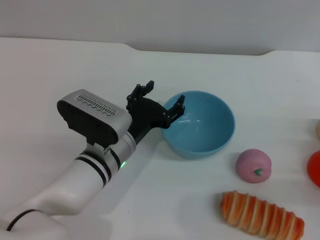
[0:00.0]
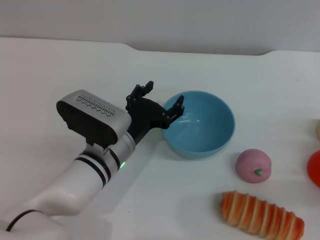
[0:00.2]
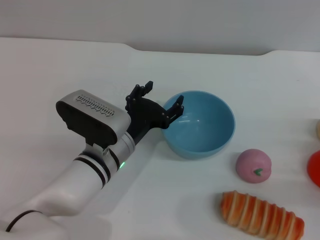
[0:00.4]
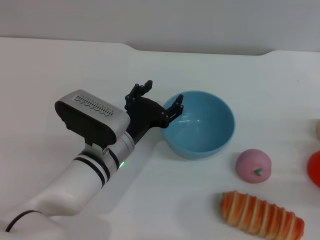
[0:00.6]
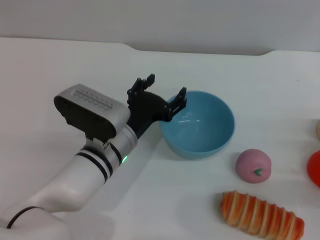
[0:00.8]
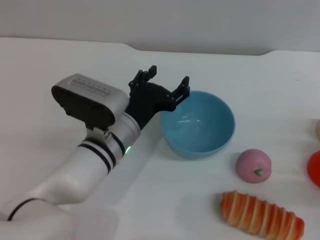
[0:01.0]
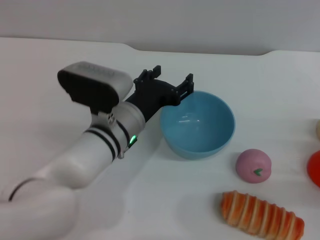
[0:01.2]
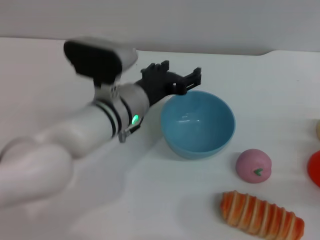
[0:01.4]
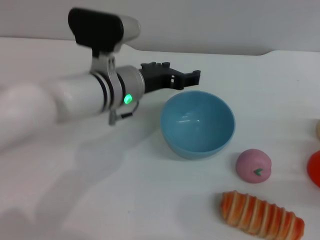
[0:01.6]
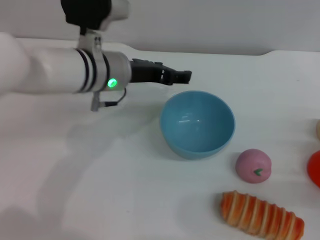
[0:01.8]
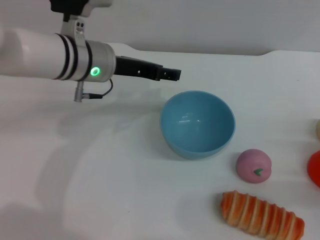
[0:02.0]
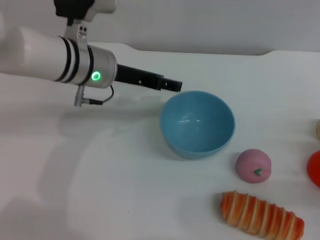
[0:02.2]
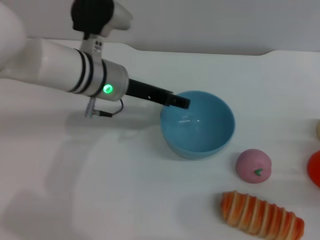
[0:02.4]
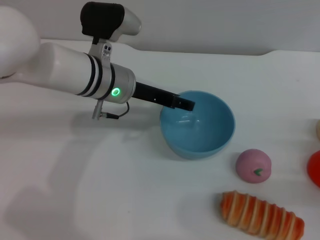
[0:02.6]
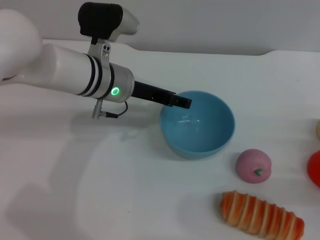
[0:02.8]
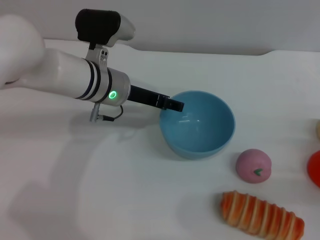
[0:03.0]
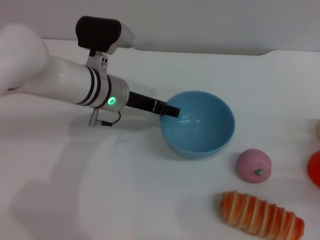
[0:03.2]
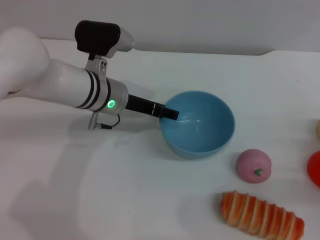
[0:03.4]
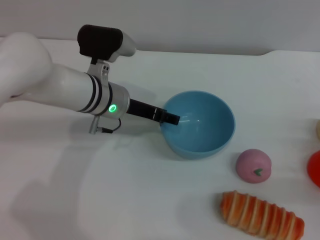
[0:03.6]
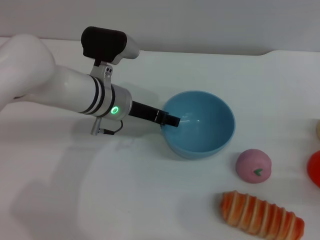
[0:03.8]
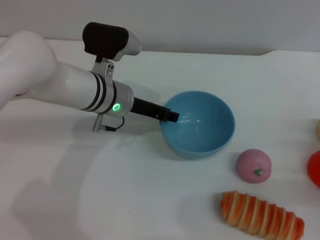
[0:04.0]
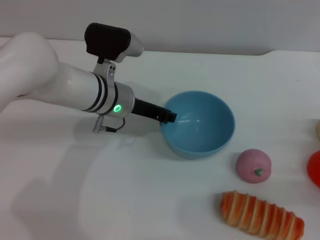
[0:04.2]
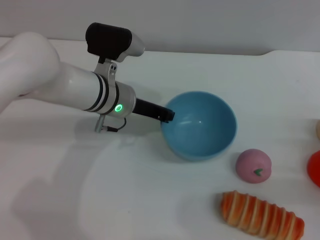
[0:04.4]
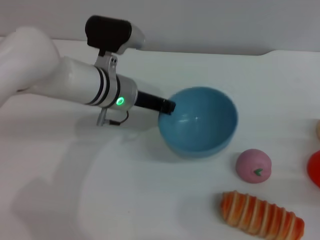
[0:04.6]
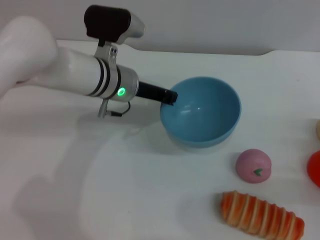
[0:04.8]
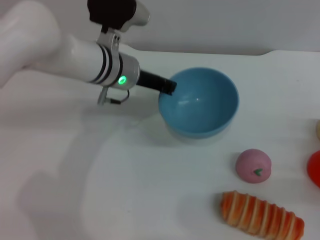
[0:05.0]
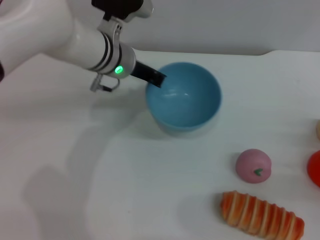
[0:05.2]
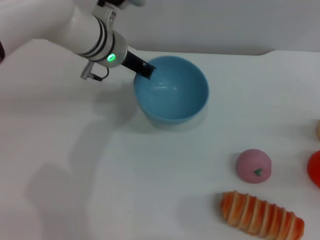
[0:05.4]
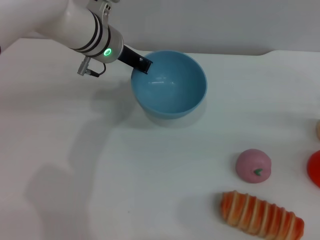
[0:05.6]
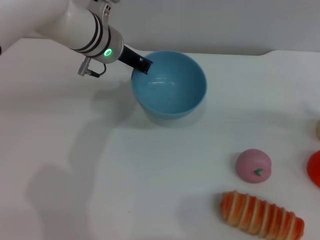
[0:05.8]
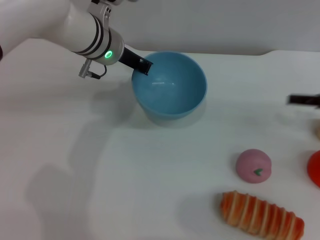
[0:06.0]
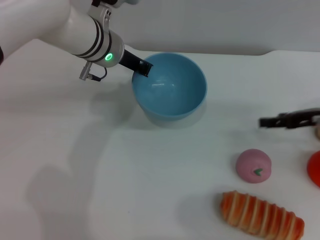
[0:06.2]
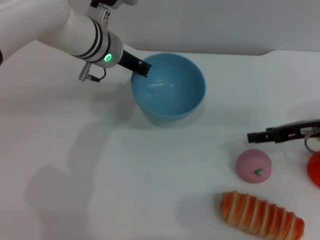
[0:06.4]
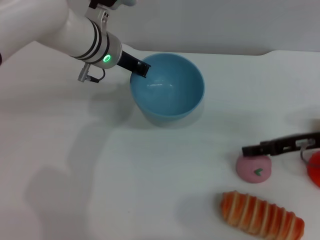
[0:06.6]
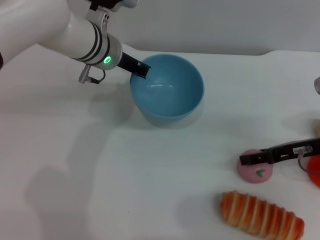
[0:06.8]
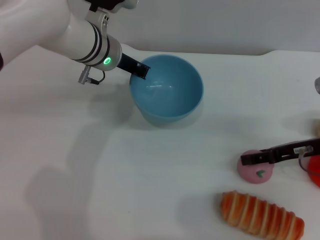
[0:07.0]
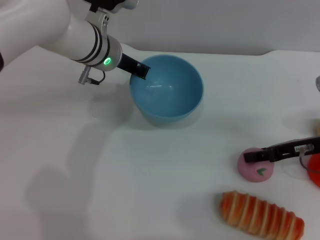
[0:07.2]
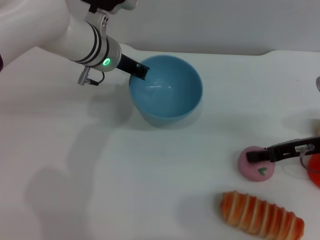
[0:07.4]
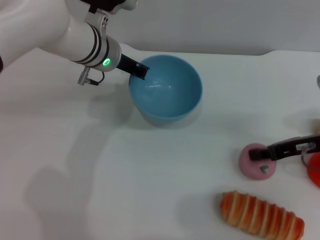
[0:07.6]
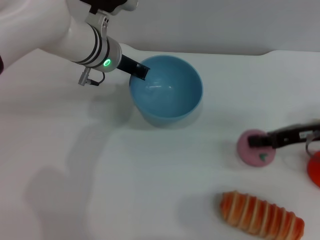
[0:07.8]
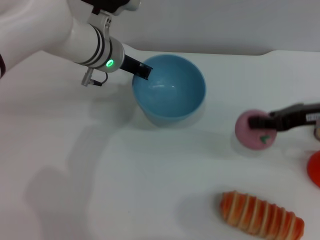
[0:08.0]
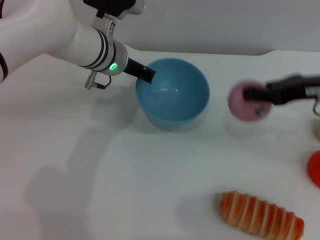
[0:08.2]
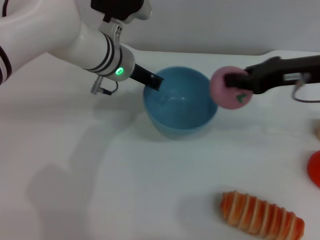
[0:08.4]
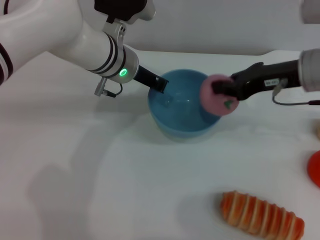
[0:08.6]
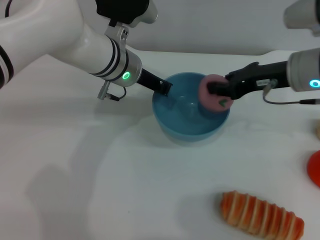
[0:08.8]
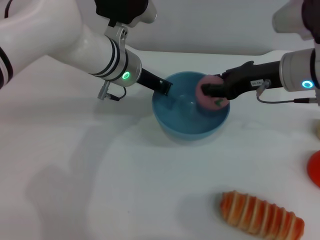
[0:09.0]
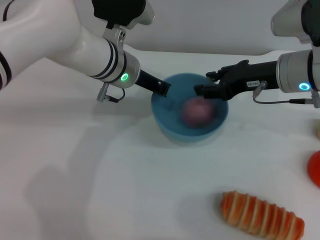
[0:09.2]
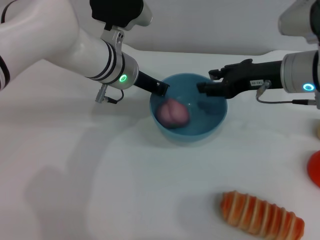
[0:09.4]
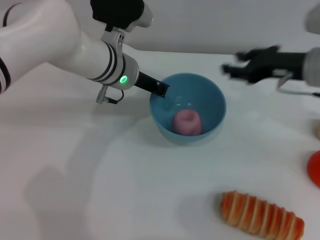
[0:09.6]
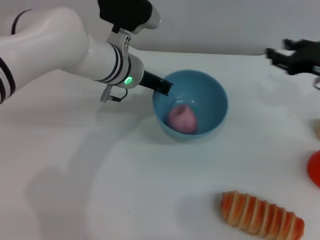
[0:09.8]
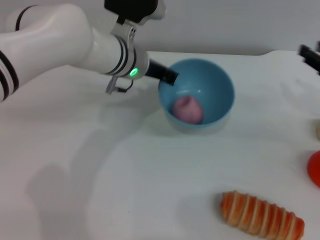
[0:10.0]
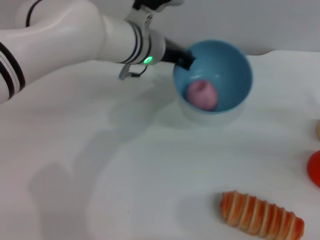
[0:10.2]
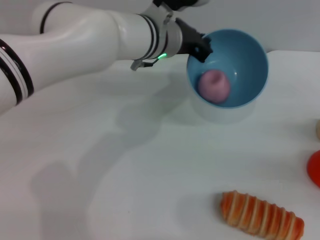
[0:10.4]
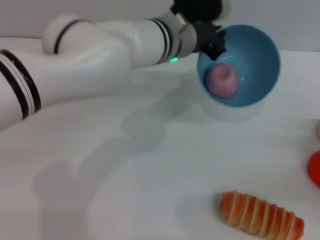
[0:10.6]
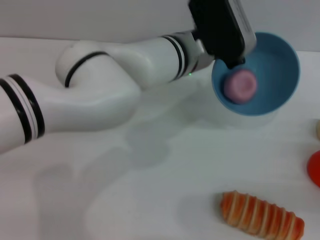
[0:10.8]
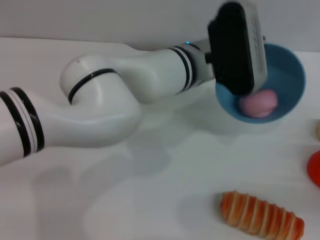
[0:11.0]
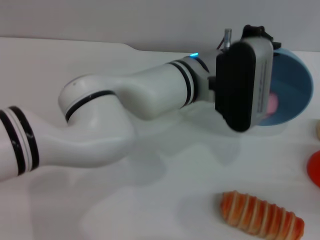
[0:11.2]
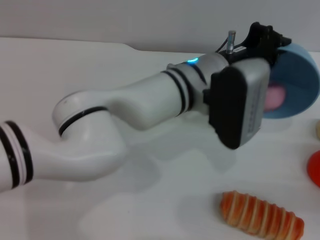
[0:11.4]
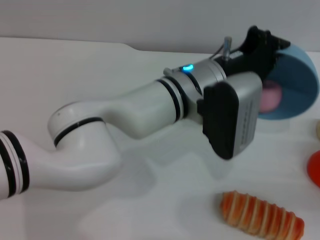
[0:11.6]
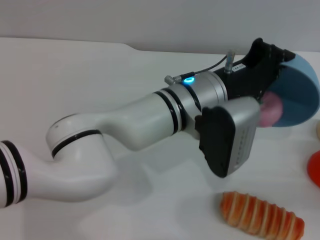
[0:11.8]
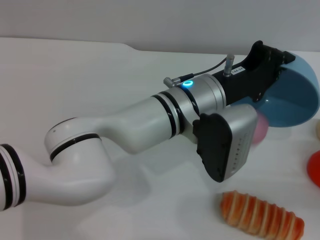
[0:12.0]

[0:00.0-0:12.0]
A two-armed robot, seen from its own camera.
Task of the whole recording: put the peach into the blue bowl and pour it out repeatedly.
Step, 0:00.0 to 0:05.2: Pick up the bowl with the left gripper.
Step, 0:05.4 to 0:08.0: Pick up the peach with the right gripper.
Step, 0:08.2 to 0:09.4: Place the peach into the bowl.
0:00.0 to 0:01.6: The left gripper shifts some 10 cm upward and forward.
0:03.0 to 0:04.4: The left gripper closes its fingers.
0:04.4 to 0:06.0: The right gripper shifts some 15 cm forward and upward; the left gripper goes some 10 cm upward and forward, and closes.
0:06.0 to 0:07.6: The right gripper moves to the left, about 5 cm, and closes.
0:07.6 to 0:09.0: The right gripper is displaced to the left and upward by about 10 cm.
0:09.0 to 0:10.4: The right gripper shifts roughly 25 cm to the right, backward and downward, and opens up, while the left gripper heads to the right, covering about 5 cm.
0:10.4 to 0:12.0: The right gripper moves approximately 5 cm. The left gripper goes approximately 10 cm backward.

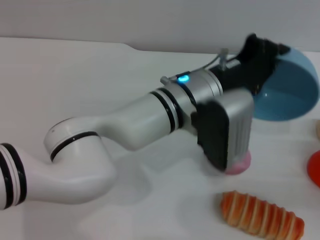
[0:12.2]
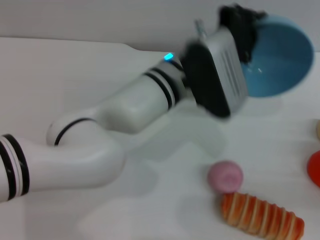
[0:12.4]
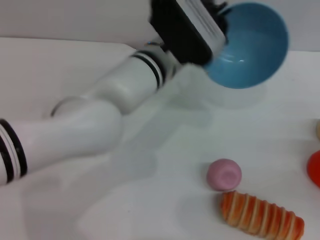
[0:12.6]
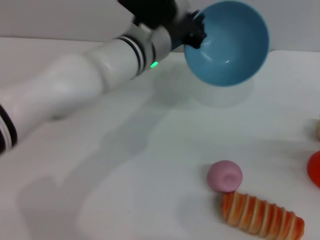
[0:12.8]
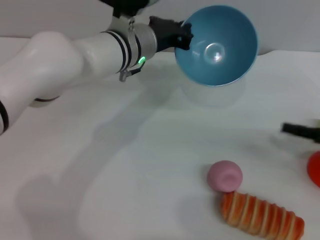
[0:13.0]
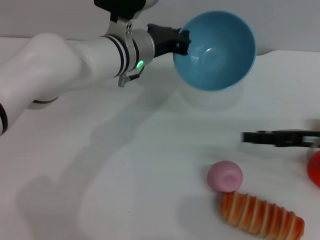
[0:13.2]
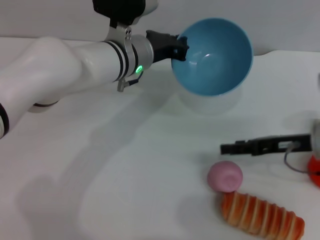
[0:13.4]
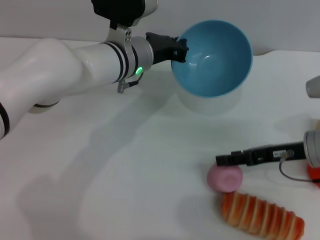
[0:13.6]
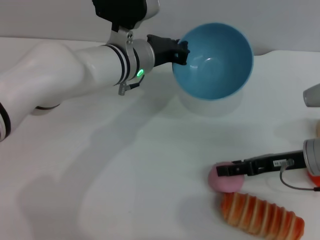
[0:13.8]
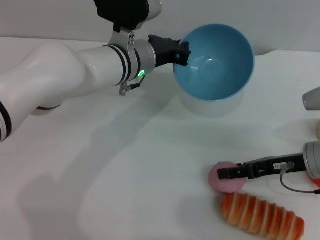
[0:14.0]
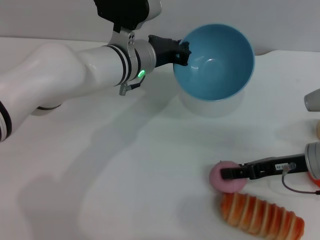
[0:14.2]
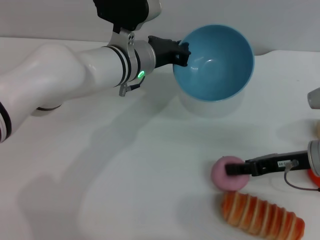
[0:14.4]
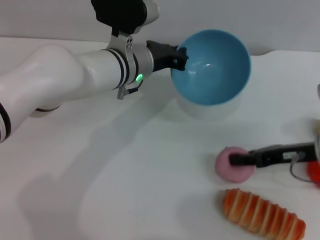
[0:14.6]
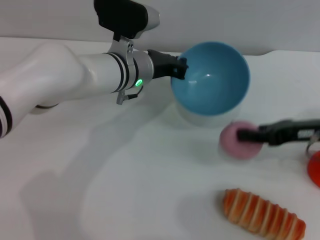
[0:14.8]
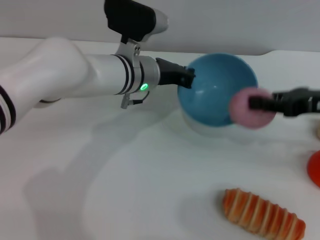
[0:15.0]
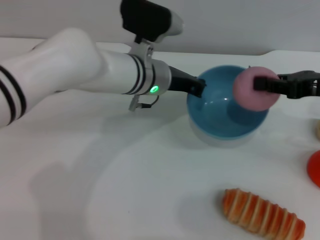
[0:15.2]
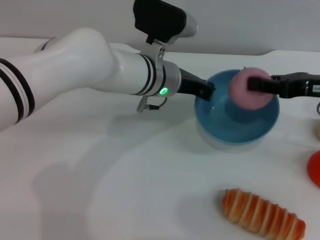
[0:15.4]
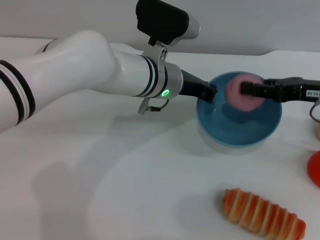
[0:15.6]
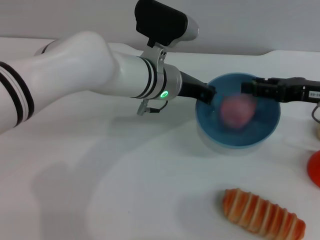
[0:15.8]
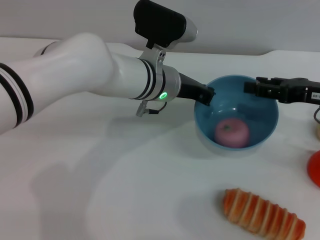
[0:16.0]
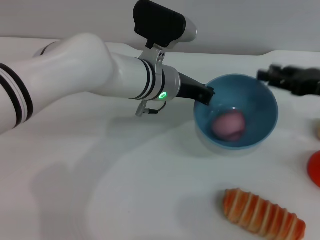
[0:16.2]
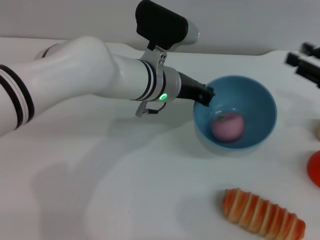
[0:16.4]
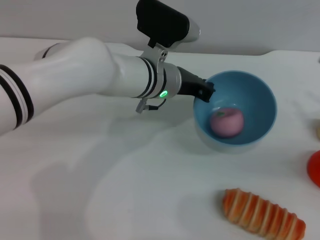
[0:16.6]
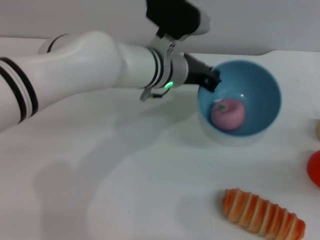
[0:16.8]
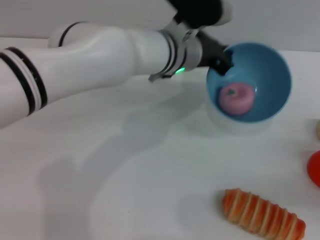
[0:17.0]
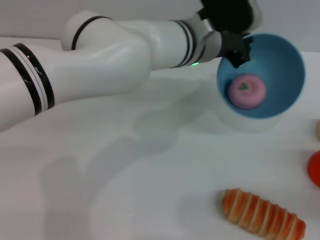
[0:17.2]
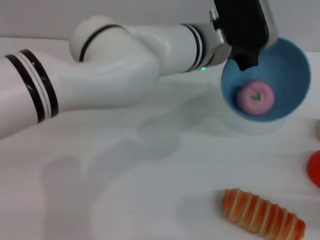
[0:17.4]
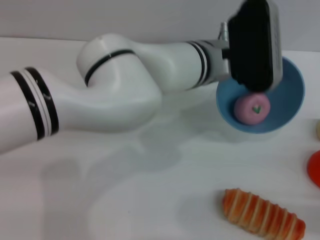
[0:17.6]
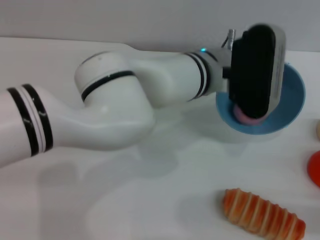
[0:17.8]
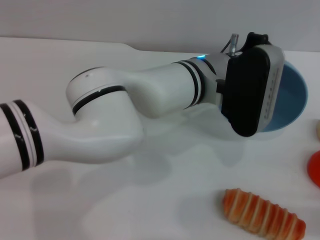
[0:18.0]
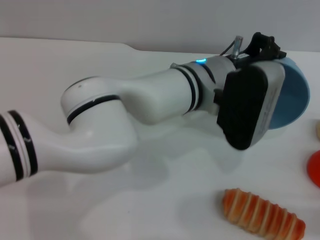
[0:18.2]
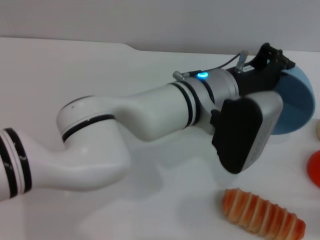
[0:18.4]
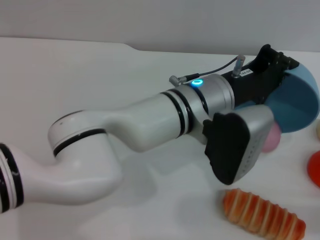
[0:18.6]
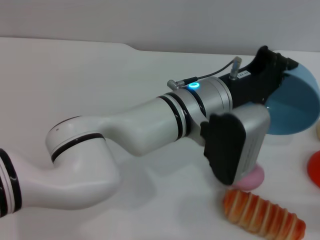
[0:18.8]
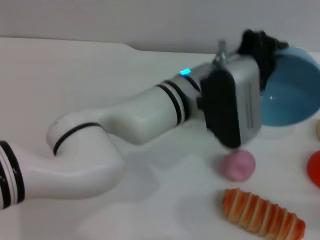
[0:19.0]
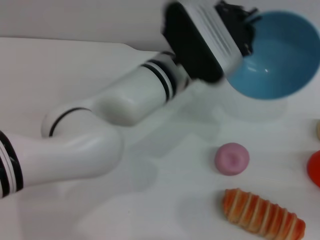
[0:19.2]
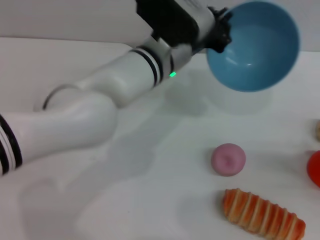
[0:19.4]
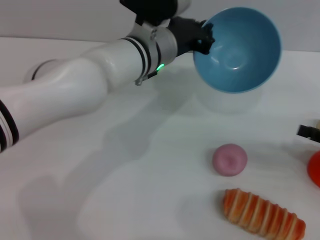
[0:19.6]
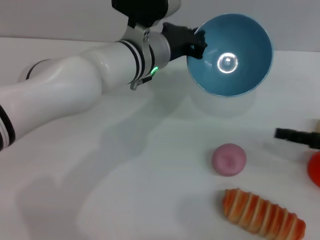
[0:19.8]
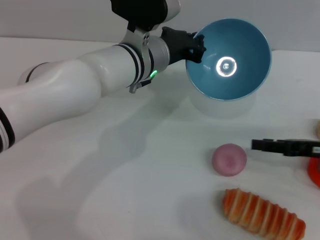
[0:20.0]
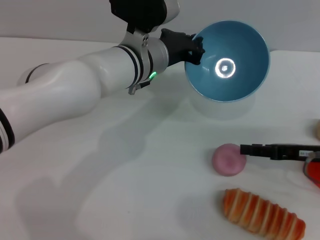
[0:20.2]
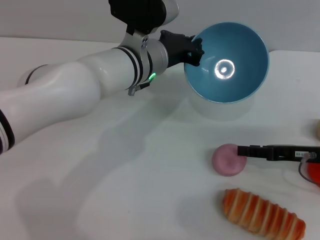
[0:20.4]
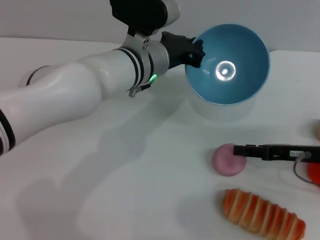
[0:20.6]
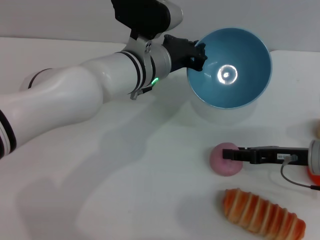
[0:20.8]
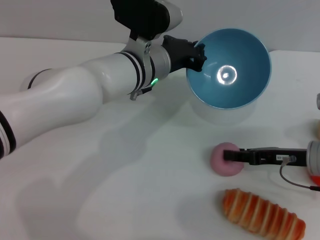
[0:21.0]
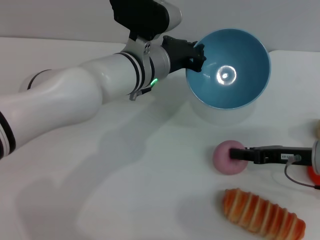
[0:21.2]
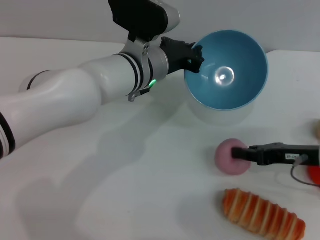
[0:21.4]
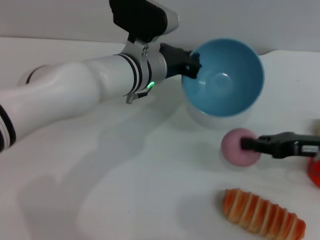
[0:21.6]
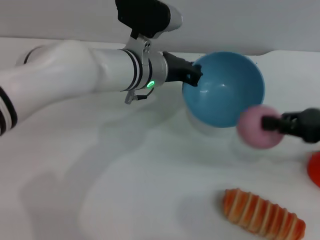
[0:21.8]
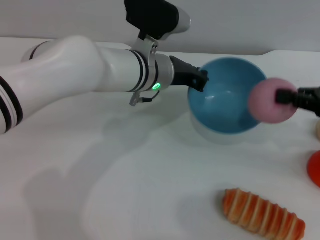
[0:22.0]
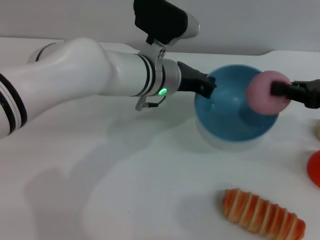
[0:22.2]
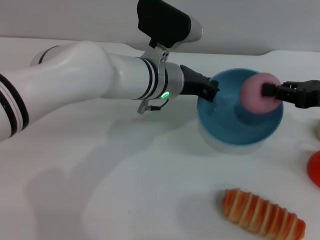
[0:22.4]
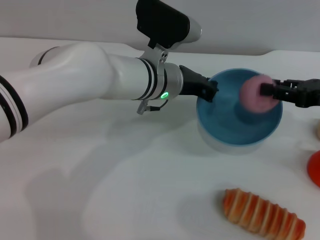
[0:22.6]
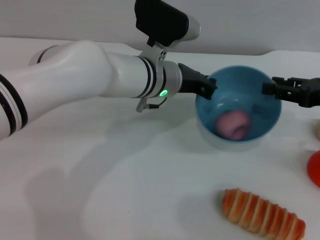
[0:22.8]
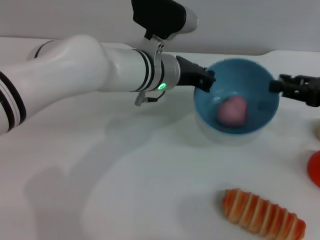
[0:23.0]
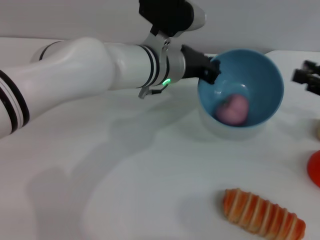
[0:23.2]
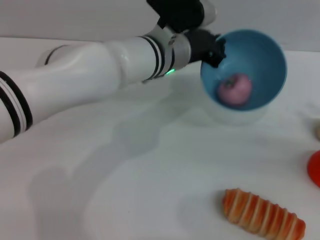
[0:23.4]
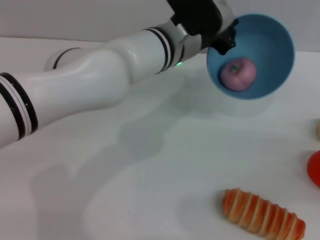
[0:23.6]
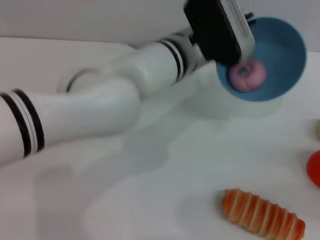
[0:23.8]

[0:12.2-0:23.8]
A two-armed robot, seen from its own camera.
Task of the whole recording: put the peach into the blue bowl and pour it out repeatedly.
Step, 0:12.4 to 0:14.6: Pick up the peach with the right gripper.
Step, 0:14.8 to 0:16.2: Place the peach into the bowl.
Step, 0:16.4 to 0:19.0: Pour the peach out of bowl.
Step, 0:19.2 to 0:21.6: Pick up the peach with the right gripper.
Step, 0:21.8 to 0:23.2: Place the peach into the bowl.
0:12.2 to 0:13.6: The right gripper shifts roughly 15 cm to the left and forward. Meanwhile the left gripper moves forward and to the left, roughly 10 cm.
0:13.6 to 0:15.0: The right gripper heads upward, covering roughly 10 cm, and closes up.
0:15.0 to 0:16.6: The right gripper is displaced to the right and downward by about 10 cm, and opens its fingers.
0:16.6 to 0:18.0: The left gripper is displaced to the right by roughly 5 cm; the right gripper shifts about 15 cm backward and downward.
0:18.0 to 0:19.4: The right gripper shifts by roughly 5 cm. The left gripper moves to the left, some 5 cm.
0:19.4 to 0:21.0: The right gripper travels to the left and forward by some 15 cm.
0:21.0 to 0:22.4: The right gripper goes some 10 cm upward, and closes up.
0:22.4 to 0:23.8: The right gripper goes about 15 cm backward, to the right and downward, and opens.
